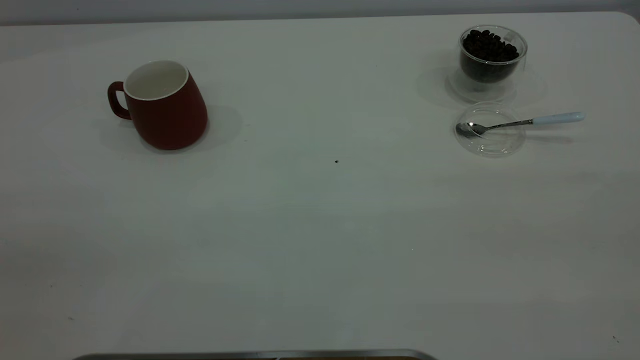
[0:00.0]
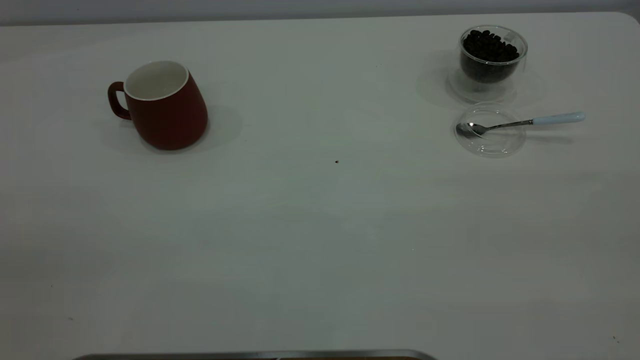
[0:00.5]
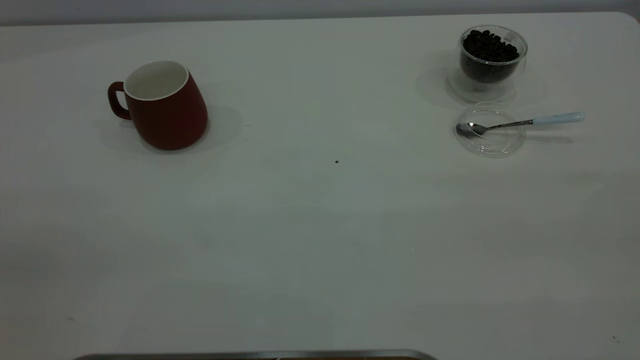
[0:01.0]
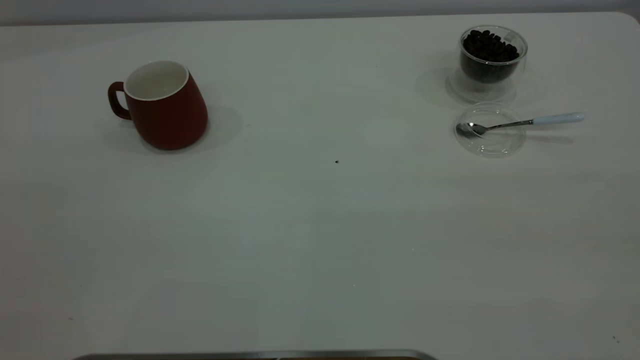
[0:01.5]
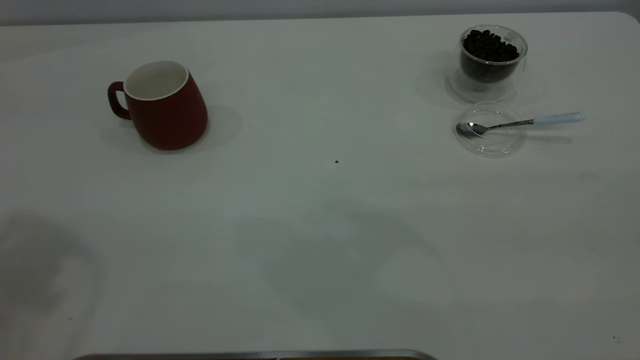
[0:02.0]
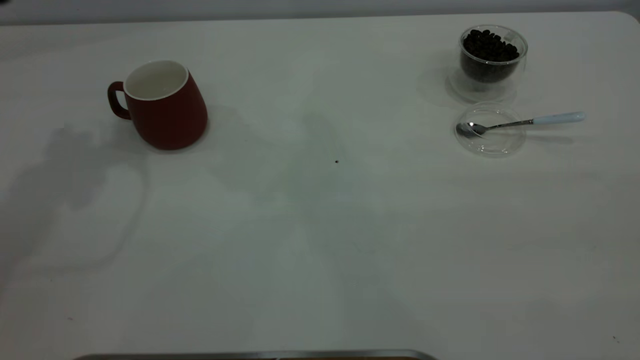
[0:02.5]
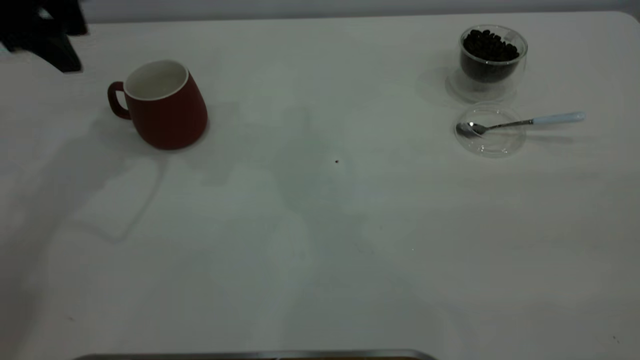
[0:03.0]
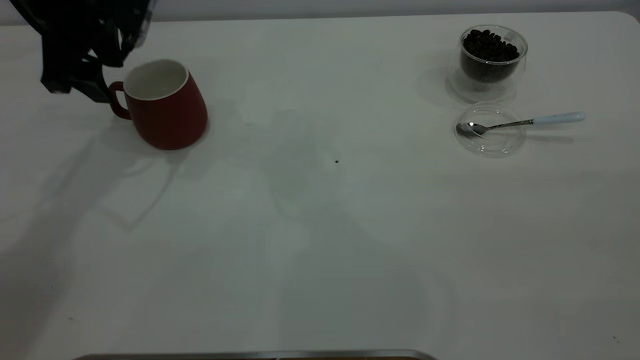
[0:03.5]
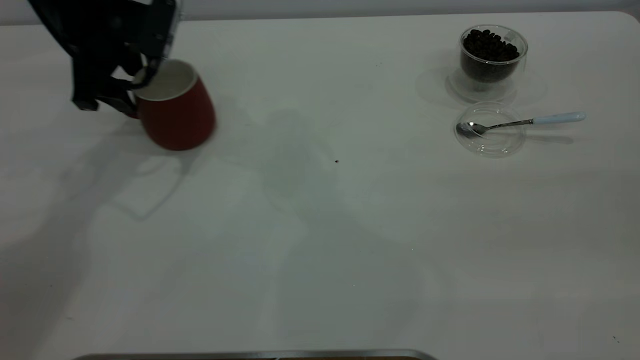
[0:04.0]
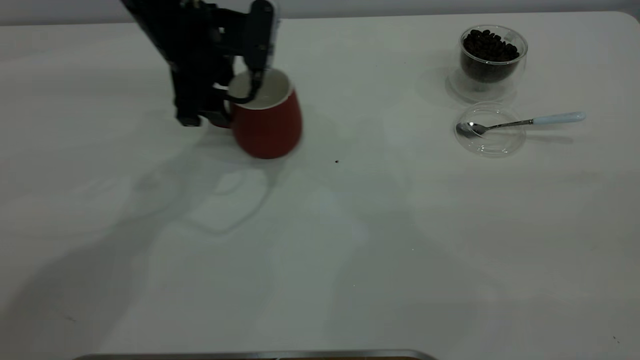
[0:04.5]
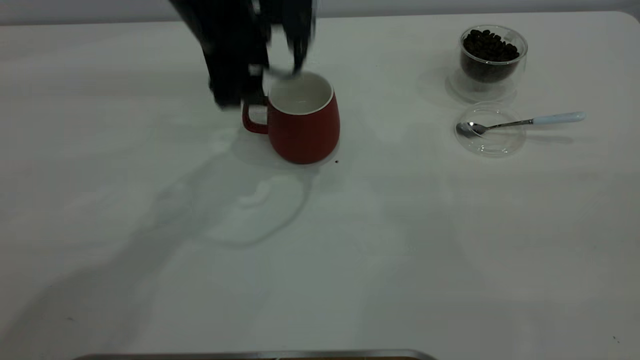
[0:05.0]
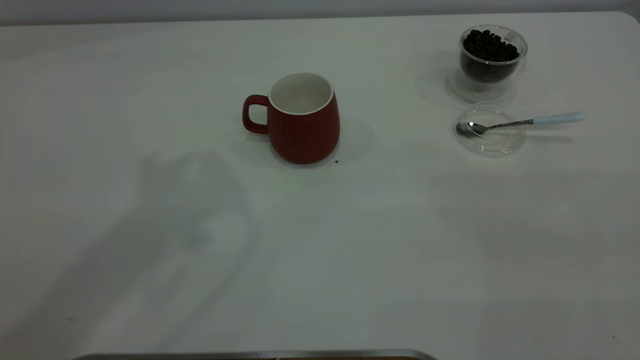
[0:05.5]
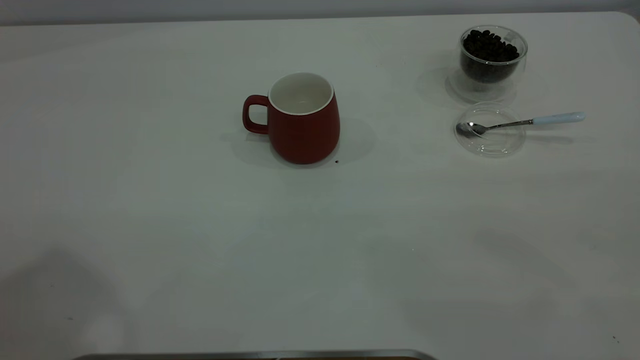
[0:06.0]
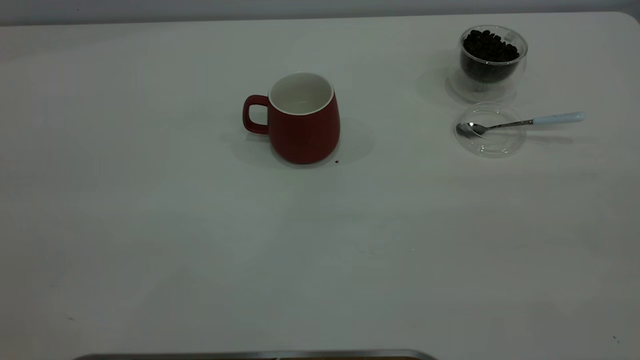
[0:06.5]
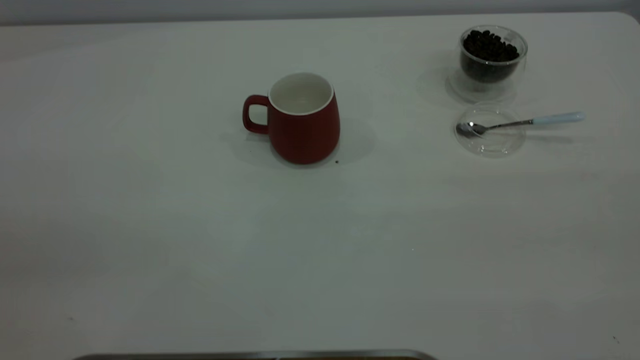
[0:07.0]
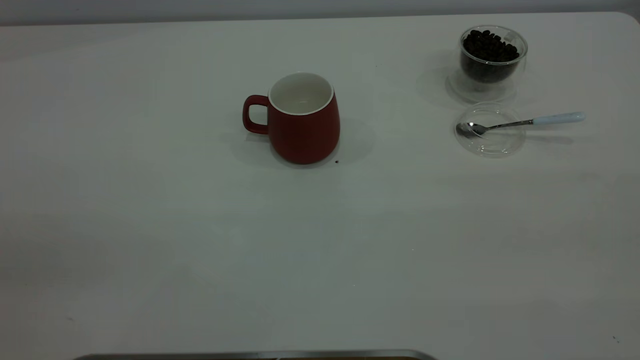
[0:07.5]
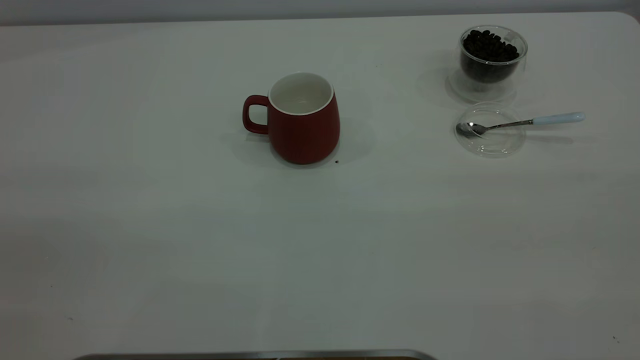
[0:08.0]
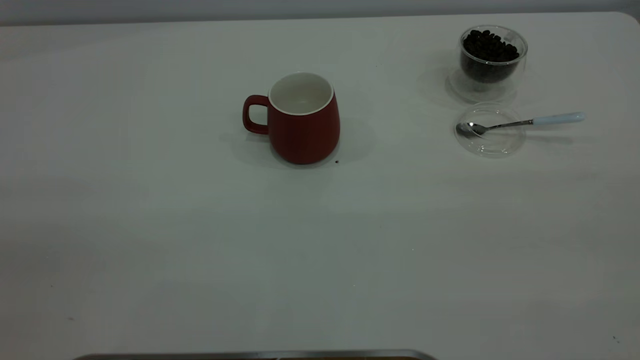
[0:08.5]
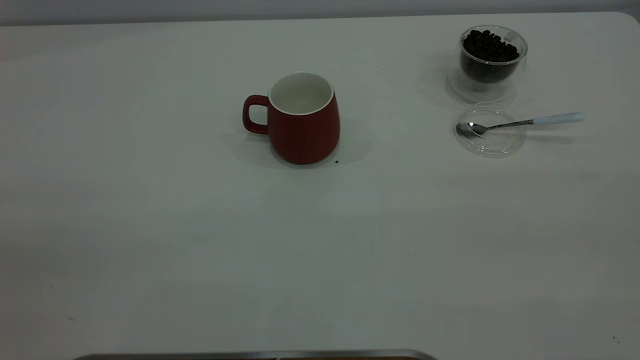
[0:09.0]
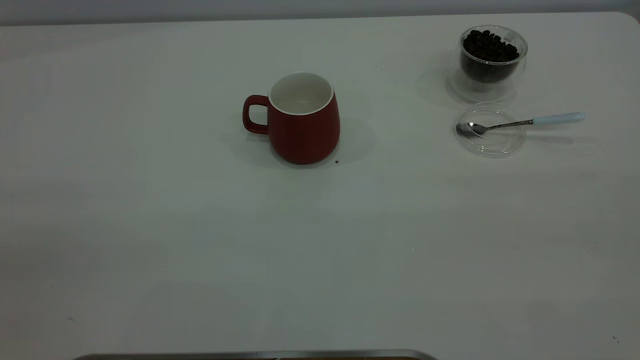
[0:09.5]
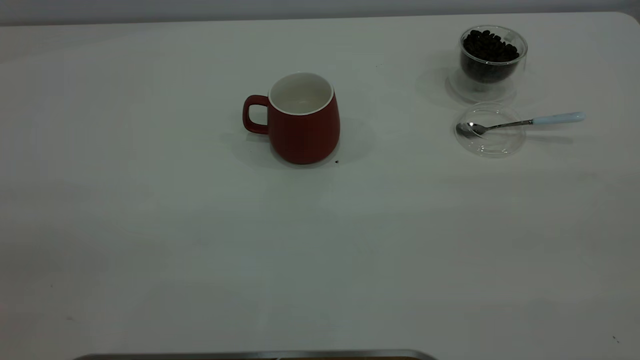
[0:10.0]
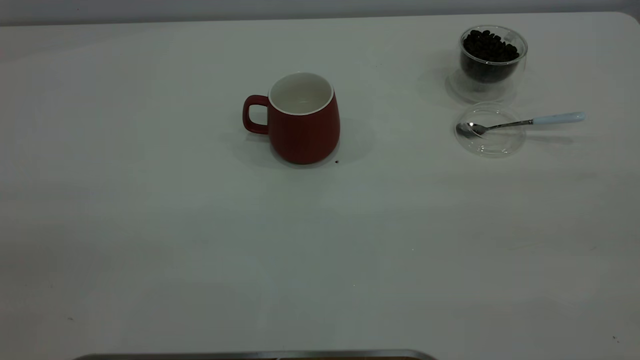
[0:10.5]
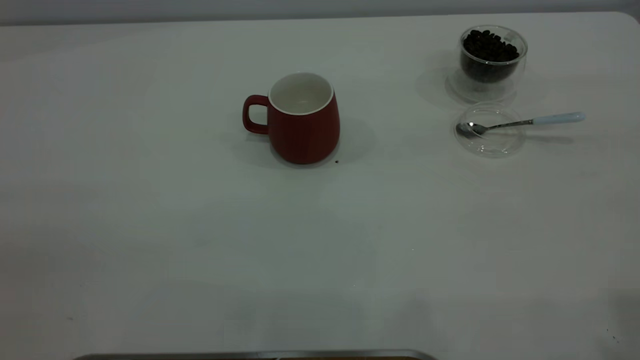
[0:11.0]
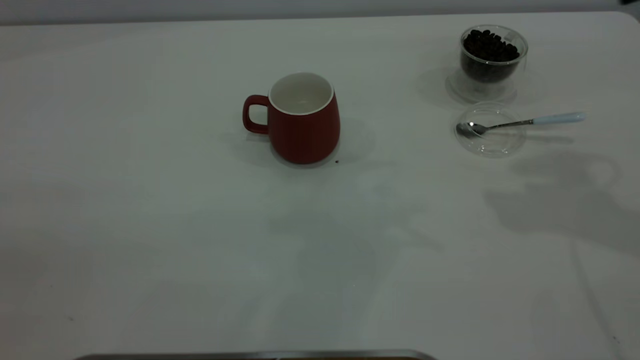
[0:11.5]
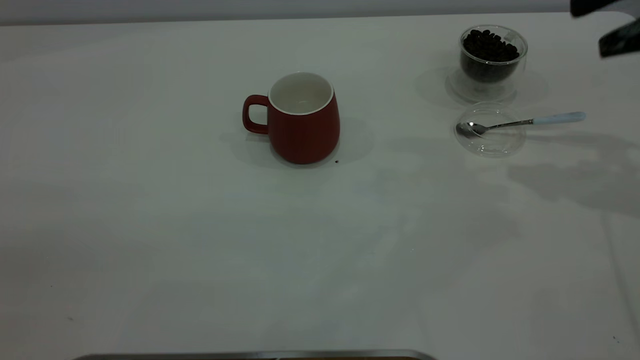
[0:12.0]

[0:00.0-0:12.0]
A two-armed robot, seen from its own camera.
Task of the whole recording: the left gripper place the red cup in the center of the table, the right gripper take the blue spoon from the cup lid and scoop out the coffee beans from the coffee cup and put them into the red cup, the right gripper put the spoon back into the cup lid.
Step, 0:00.0 to 0:05.0: Move the cup to the center of view.
0:02.0 to 0:04.0: The left gripper travels downward and forward by some 35 cm.
0:04.0 to 0:06.0: The left gripper shifts roughly 50 cm upward and backward.
0:10.0 to 0:12.0: The right gripper heads forward, covering about 35 cm.

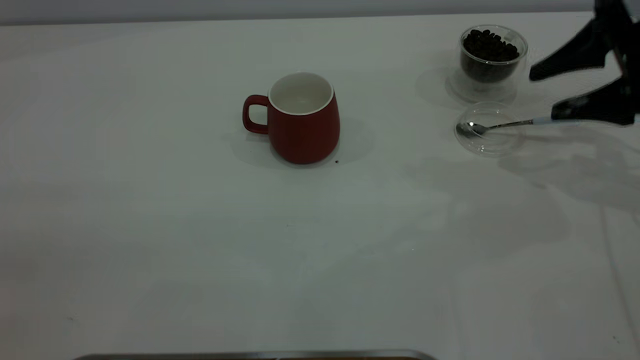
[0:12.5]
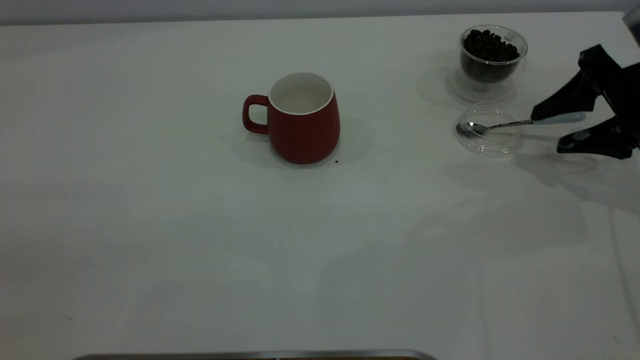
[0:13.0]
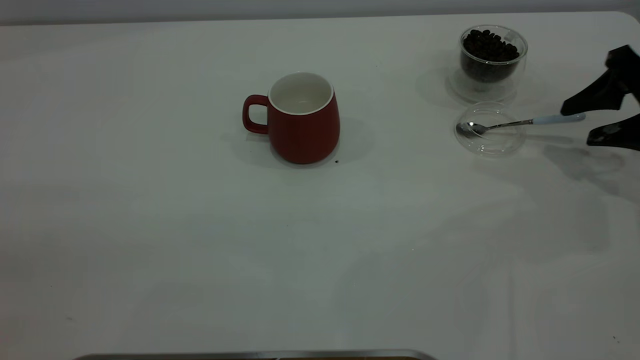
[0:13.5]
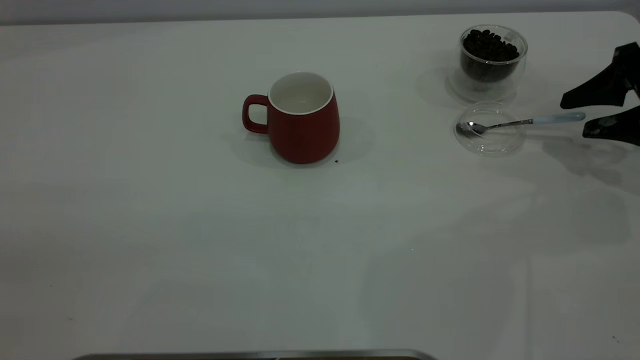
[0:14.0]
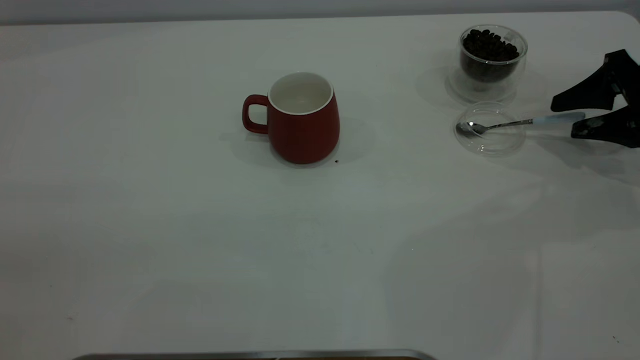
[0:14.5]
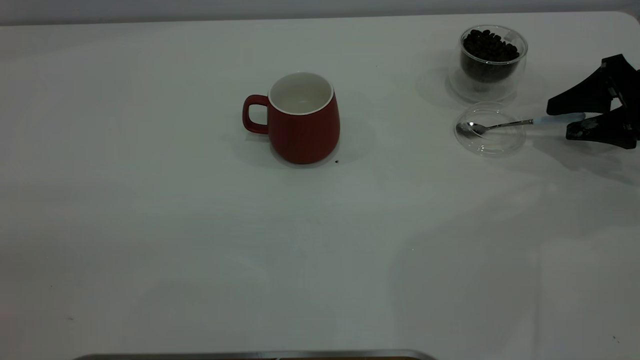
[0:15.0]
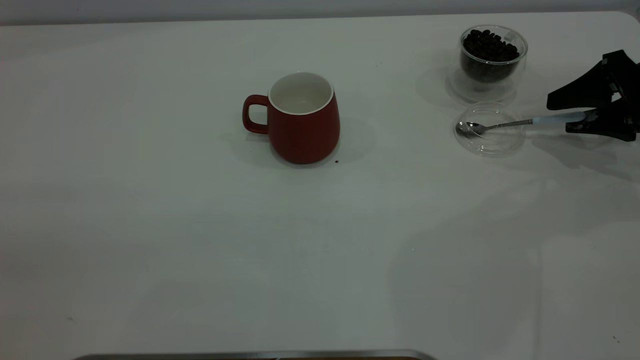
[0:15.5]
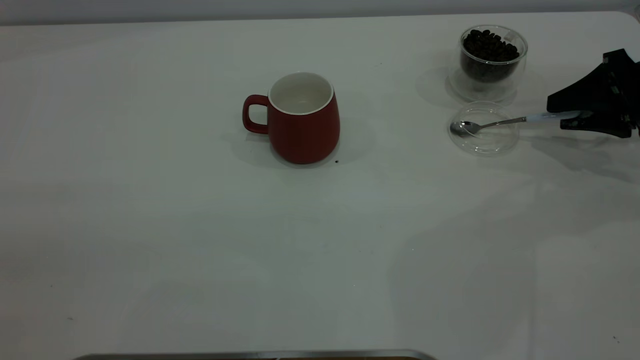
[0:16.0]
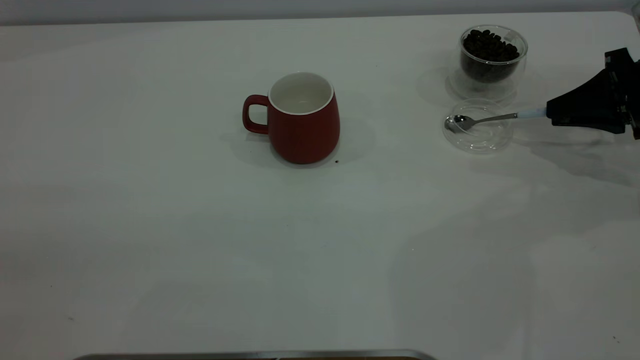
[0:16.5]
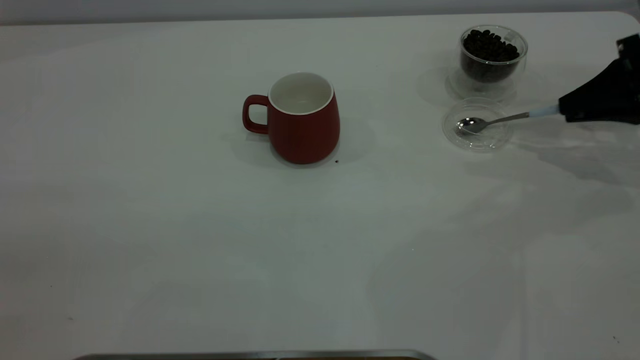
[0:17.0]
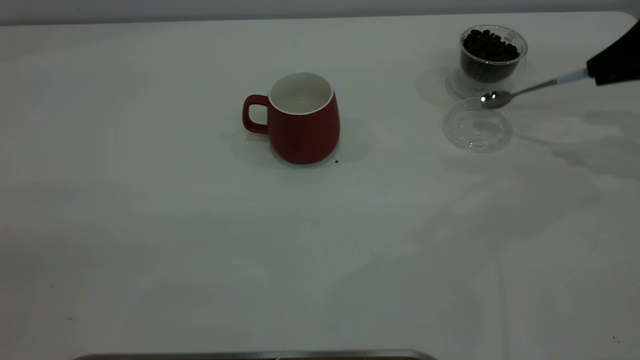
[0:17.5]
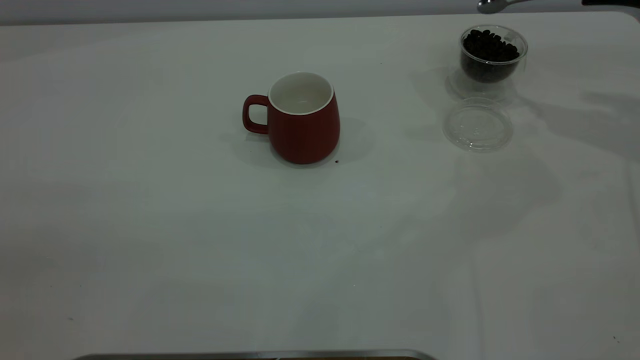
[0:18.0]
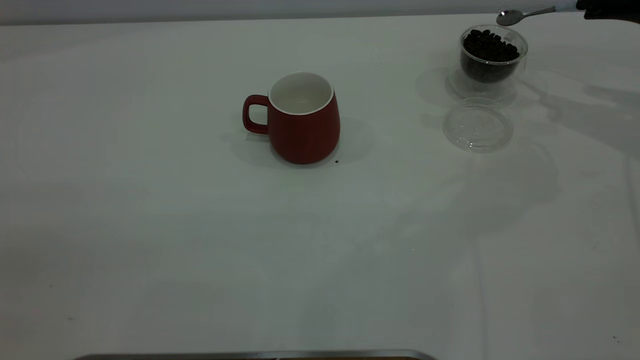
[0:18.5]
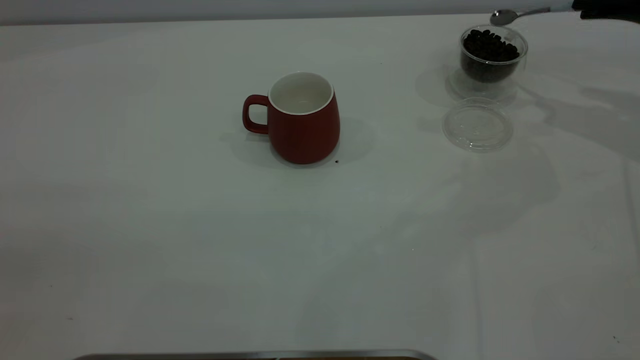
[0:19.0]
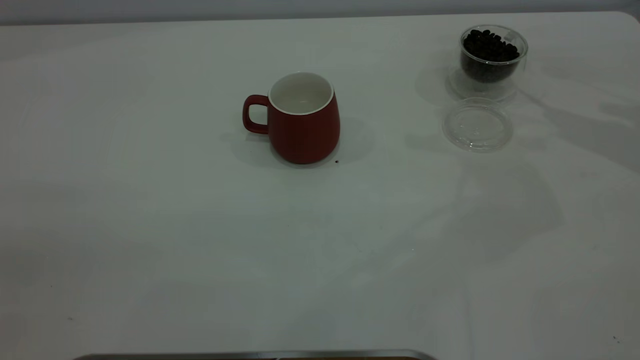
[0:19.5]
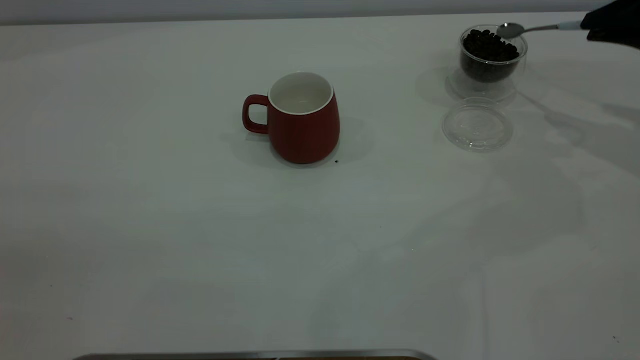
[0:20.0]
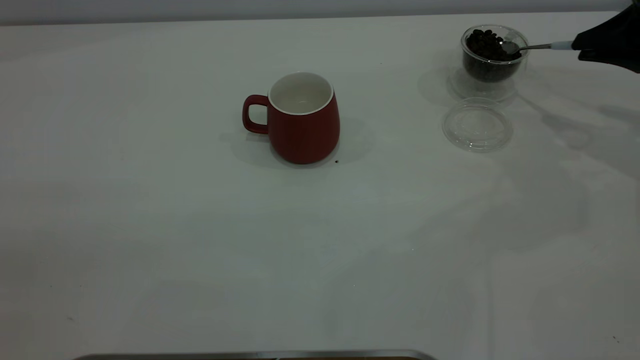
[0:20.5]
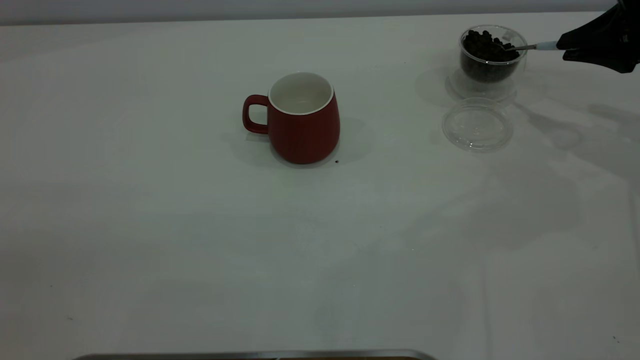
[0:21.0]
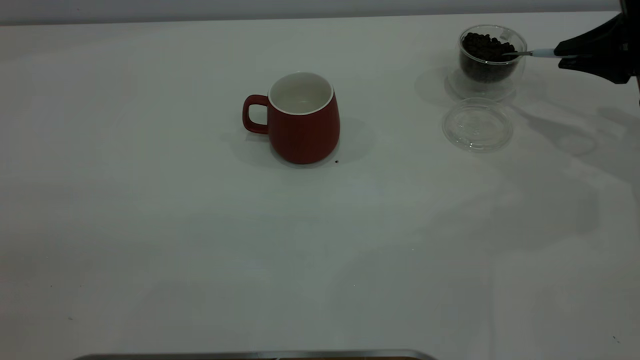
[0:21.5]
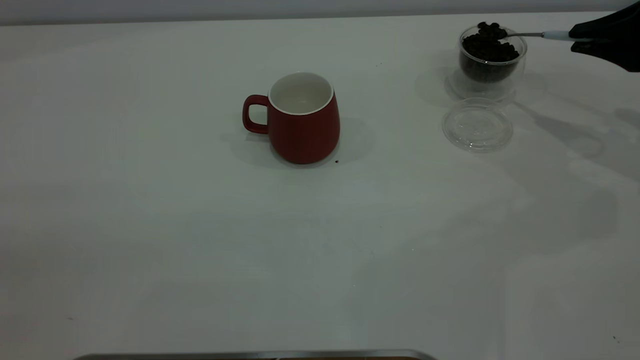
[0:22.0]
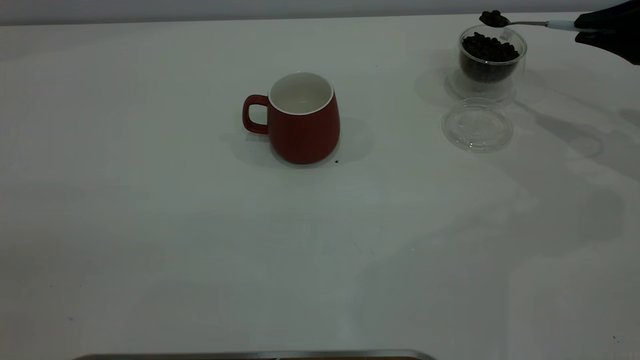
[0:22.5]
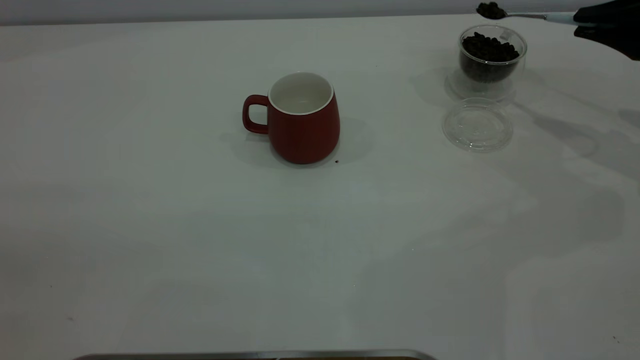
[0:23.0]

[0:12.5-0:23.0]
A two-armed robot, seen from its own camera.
Task of the whole recording: the left gripper place the red cup in the center of the table, the right gripper take the blue spoon from the cup lid and scoop out the coffee beans from the coffee cup and put them into the red cup, the right gripper put the spoon back into the cup lid.
Step, 0:12.5 to 0:17.0: Pick up the spoon.
0:12.5 to 0:14.5: The right gripper travels downward and to the right by about 10 cm.
0:14.5 to 0:16.5: The right gripper closes.
0:16.5 to 0:19.0: The right gripper shifts approximately 10 cm upward.
0:19.0 to 0:21.0: The right gripper ends up some 5 cm from where it was.
0:21.0 to 0:23.0: The grippers stay close to where they were, moving slightly.
